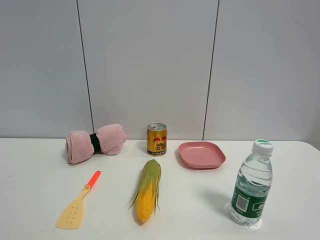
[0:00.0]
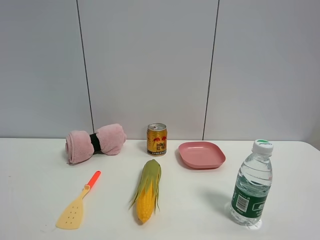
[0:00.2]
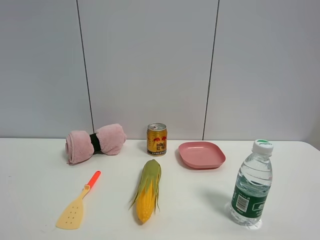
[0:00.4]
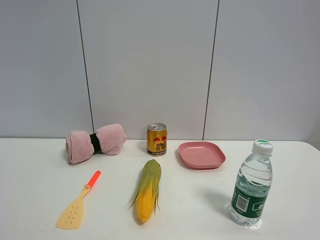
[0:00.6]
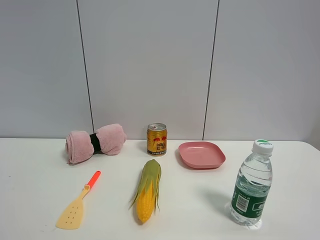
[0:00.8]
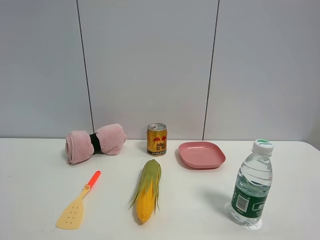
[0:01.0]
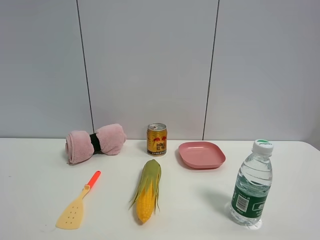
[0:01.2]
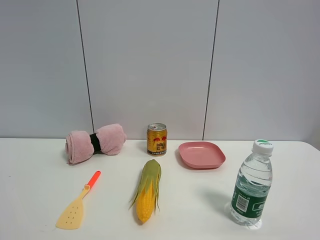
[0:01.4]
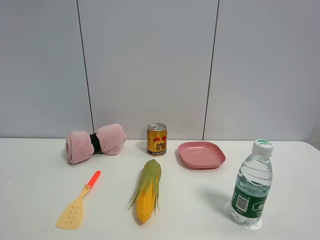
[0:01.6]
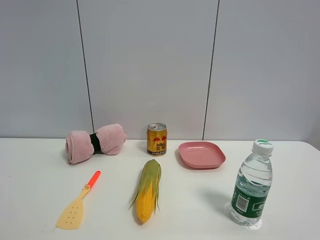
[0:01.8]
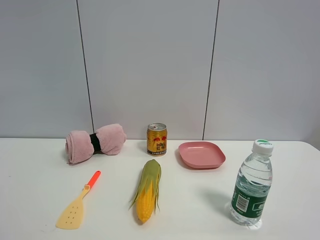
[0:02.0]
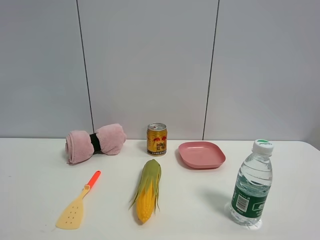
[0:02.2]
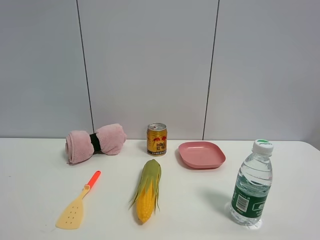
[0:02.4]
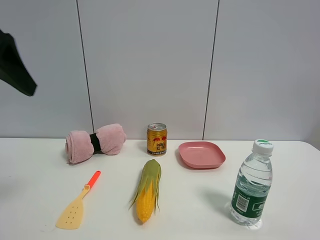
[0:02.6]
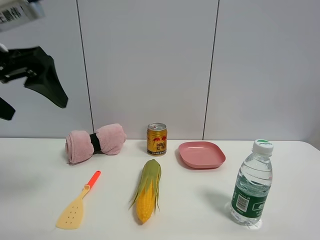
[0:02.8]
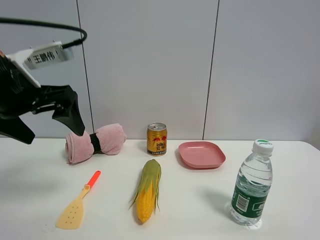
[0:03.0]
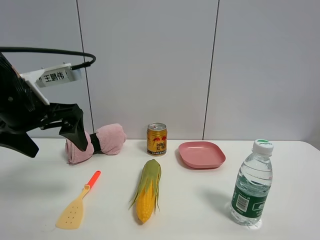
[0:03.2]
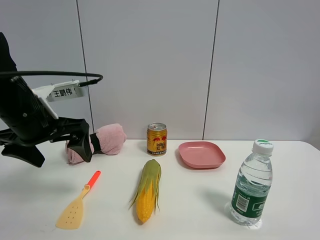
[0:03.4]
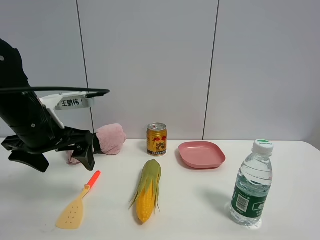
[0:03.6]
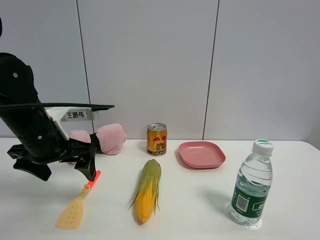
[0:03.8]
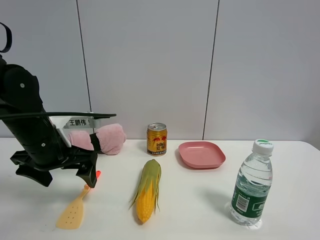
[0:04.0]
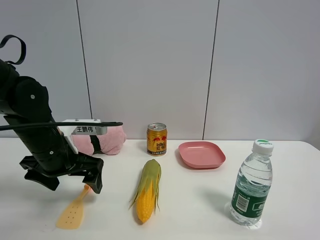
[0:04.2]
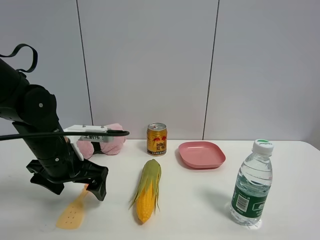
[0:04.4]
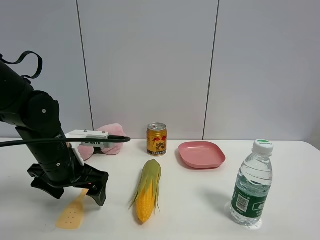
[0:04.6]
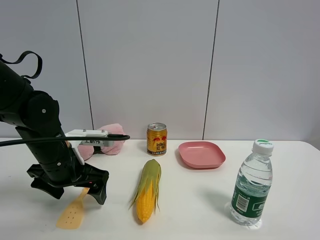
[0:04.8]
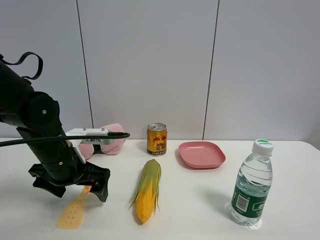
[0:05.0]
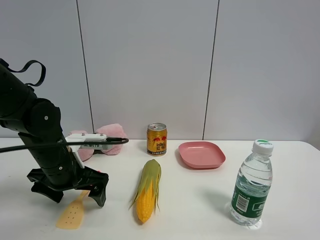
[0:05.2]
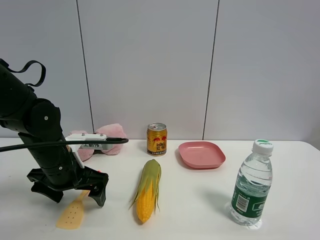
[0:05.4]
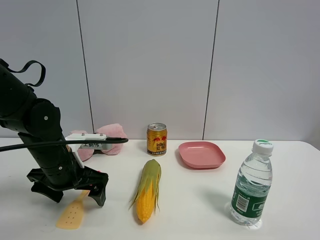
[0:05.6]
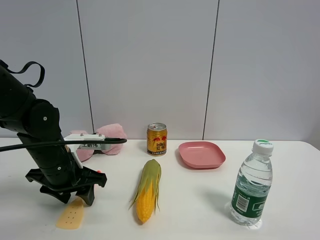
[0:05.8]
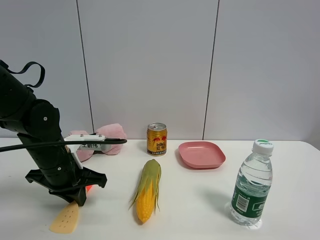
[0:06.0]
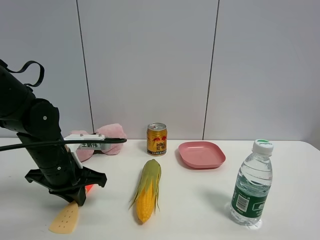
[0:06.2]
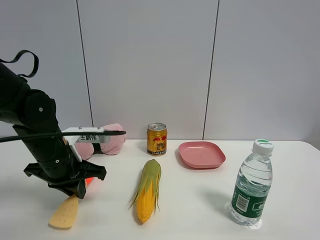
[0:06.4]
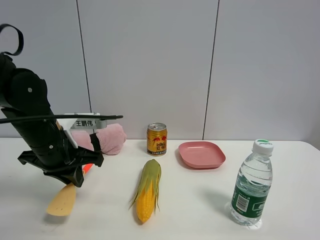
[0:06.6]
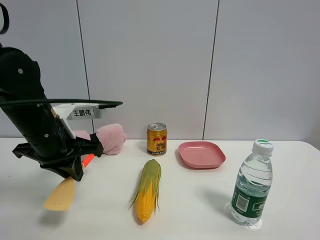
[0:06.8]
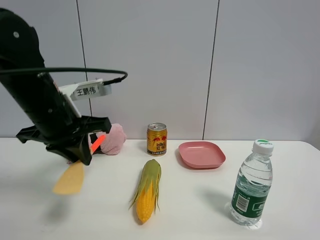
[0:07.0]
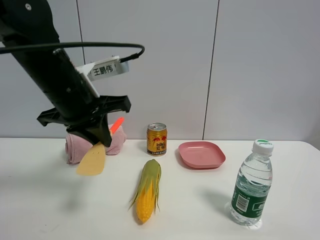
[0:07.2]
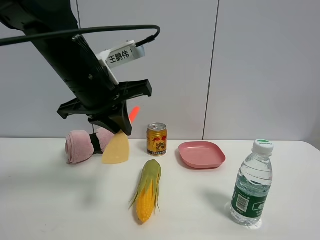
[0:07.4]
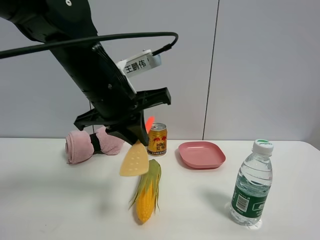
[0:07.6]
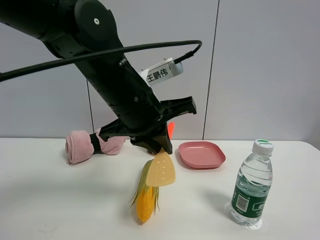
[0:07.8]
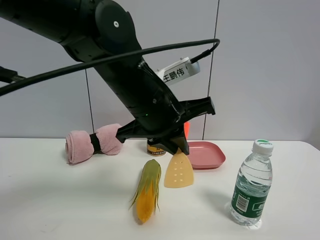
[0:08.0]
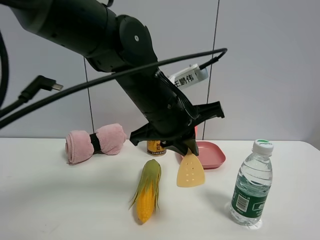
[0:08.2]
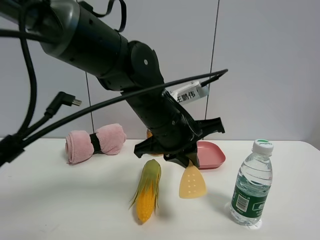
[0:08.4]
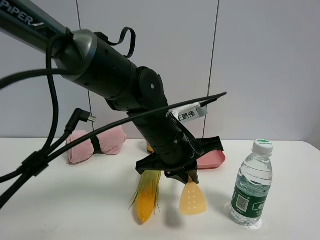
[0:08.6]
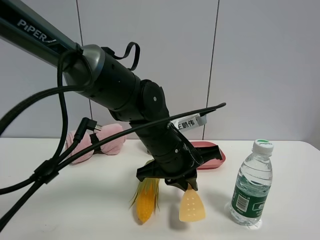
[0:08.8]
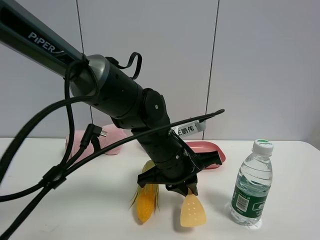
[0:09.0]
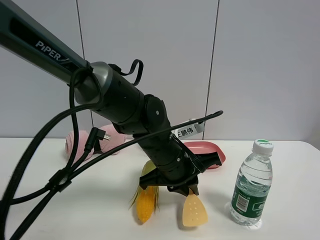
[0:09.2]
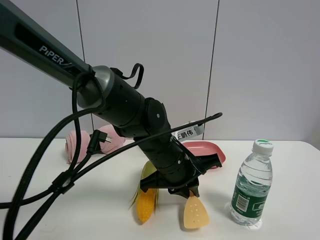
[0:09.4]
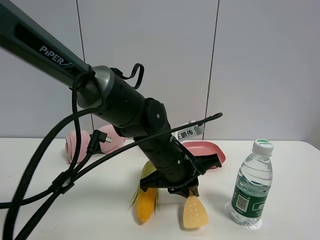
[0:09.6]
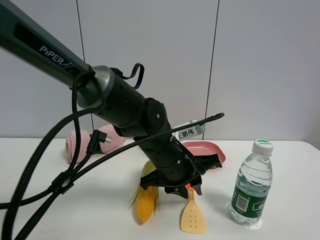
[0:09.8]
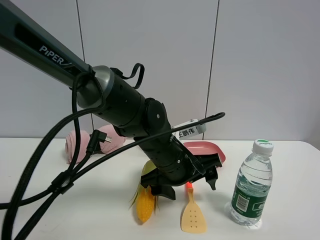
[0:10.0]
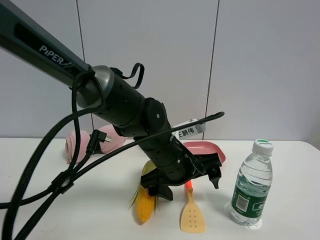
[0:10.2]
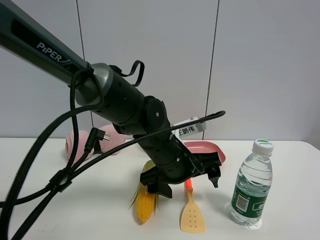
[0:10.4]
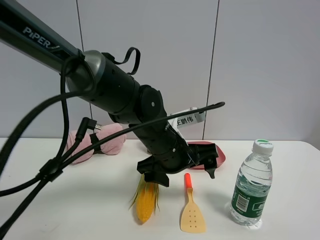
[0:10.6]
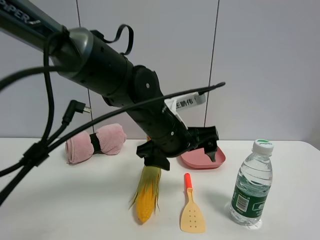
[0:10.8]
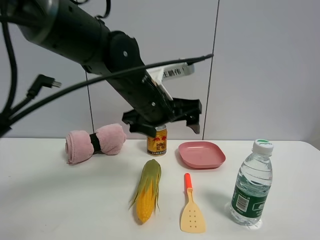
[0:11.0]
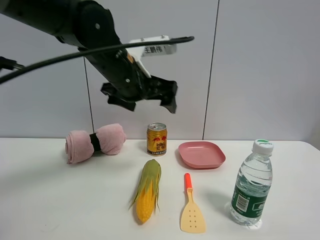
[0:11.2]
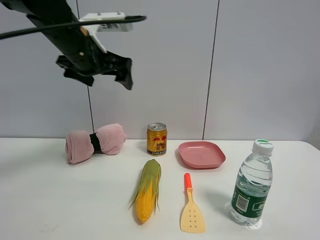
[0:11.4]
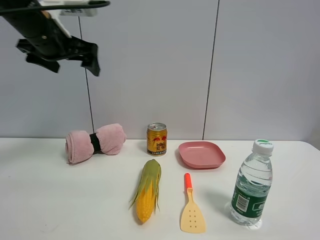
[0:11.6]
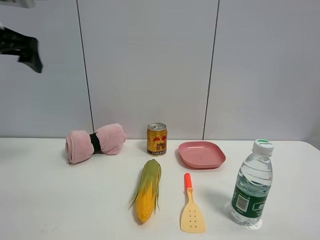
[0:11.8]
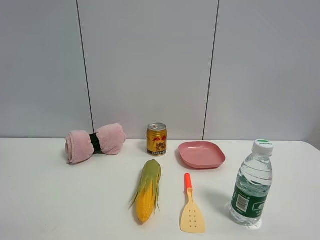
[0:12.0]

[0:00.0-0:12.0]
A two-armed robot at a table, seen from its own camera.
Task of the whole recording: the gripper move the object.
Step, 0:00.0 to 0:06.0: Grasp the cooking shovel with the left gripper.
Step, 0:06.2 to 0:10.0: Place the cooking shovel on the table with the left gripper.
0:01.6 to 0:03.0: The left gripper heads forward, covering roughly 25 cm.
0:03.0 to 0:04.4: The left gripper is displaced downward by about 15 cm.
0:04.4 to 0:06.0: The left gripper closes.
0:06.0 to 0:07.6: The left gripper is displaced upward and to the right by about 20 cm.
0:07.6 to 0:09.0: The left gripper is displaced downward and to the right by approximately 15 cm.
0:09.0 to 0:10.4: The left gripper opens.
0:10.4 to 0:12.0: The left gripper is displaced to the left and upward by about 40 cm.

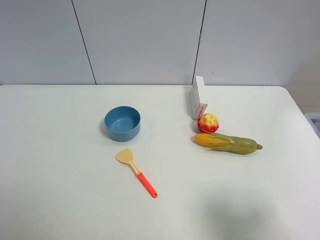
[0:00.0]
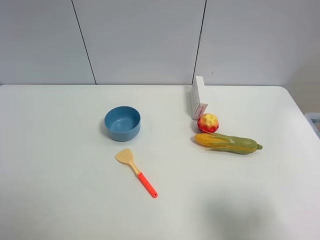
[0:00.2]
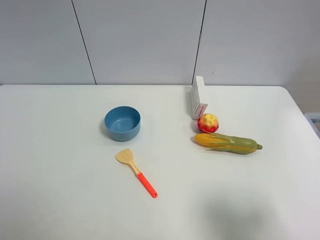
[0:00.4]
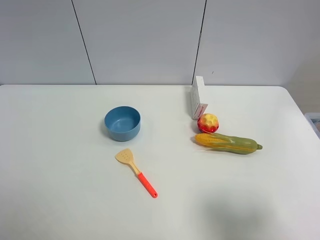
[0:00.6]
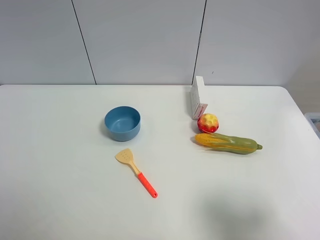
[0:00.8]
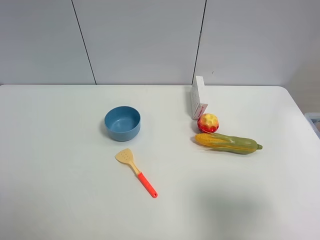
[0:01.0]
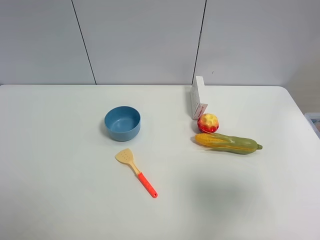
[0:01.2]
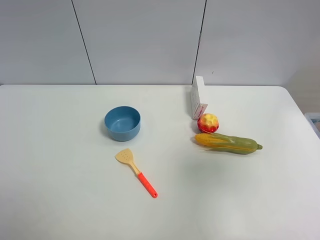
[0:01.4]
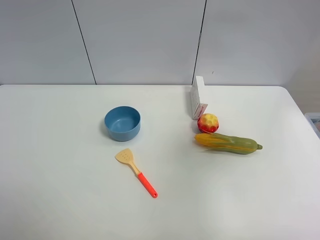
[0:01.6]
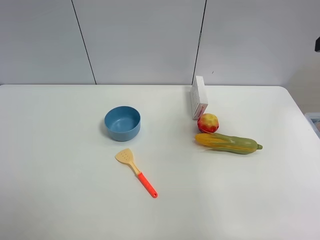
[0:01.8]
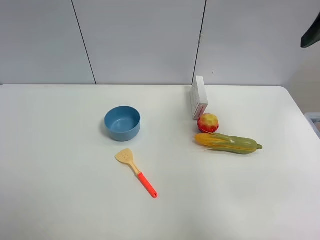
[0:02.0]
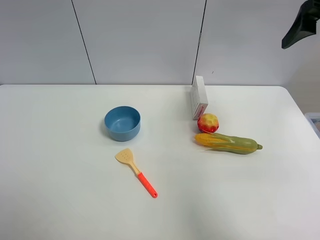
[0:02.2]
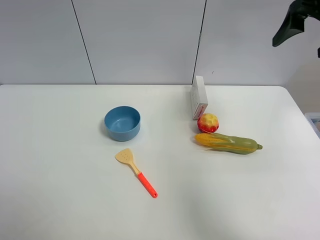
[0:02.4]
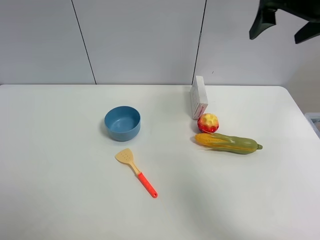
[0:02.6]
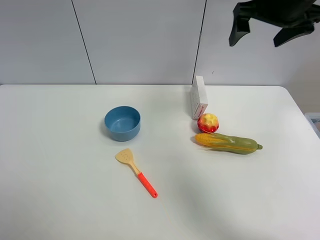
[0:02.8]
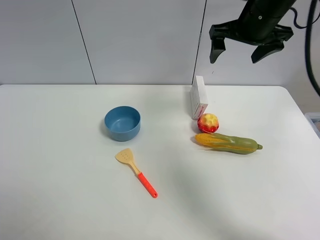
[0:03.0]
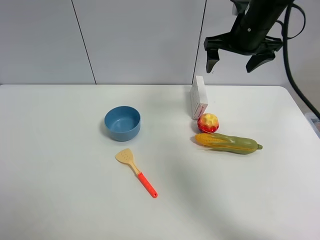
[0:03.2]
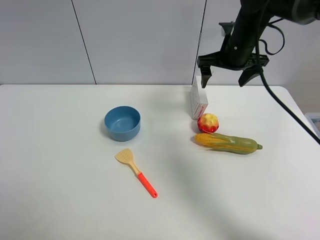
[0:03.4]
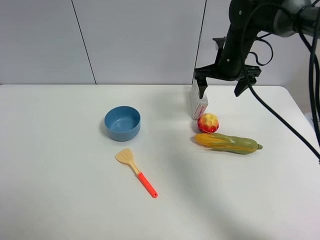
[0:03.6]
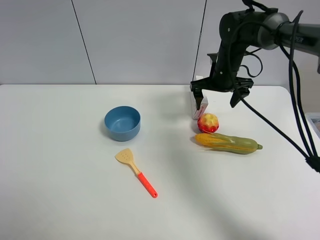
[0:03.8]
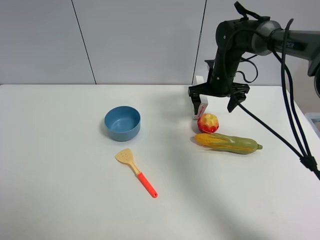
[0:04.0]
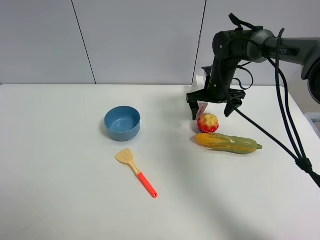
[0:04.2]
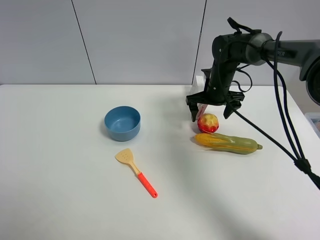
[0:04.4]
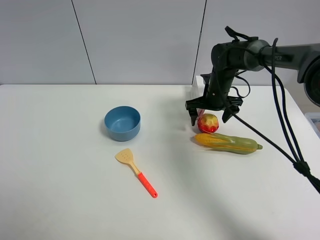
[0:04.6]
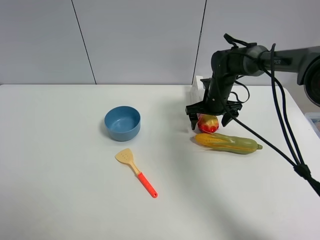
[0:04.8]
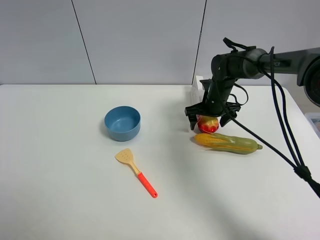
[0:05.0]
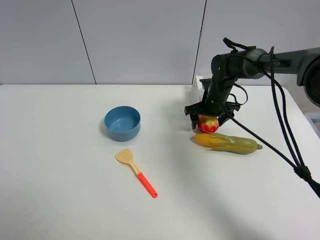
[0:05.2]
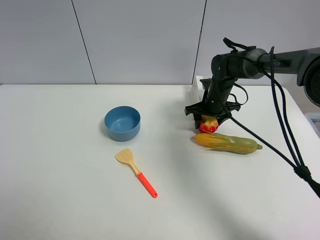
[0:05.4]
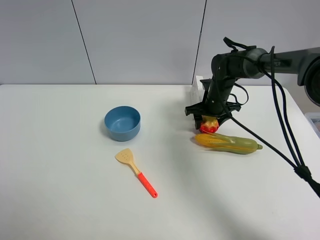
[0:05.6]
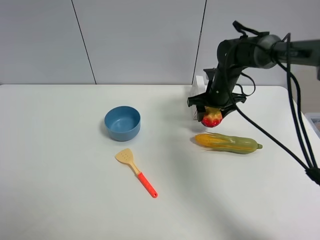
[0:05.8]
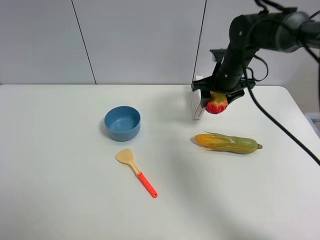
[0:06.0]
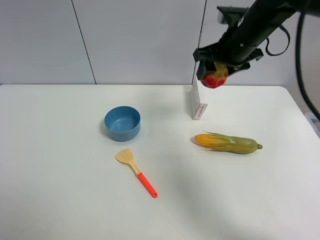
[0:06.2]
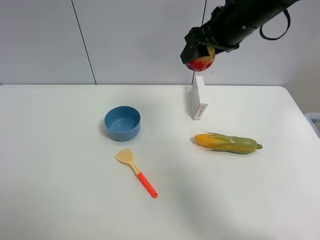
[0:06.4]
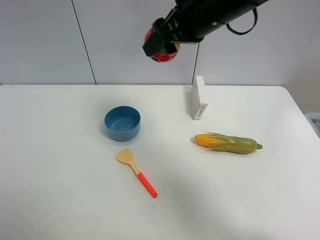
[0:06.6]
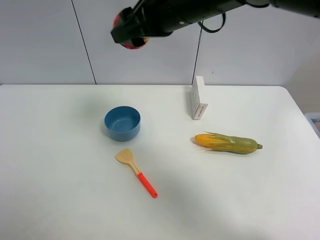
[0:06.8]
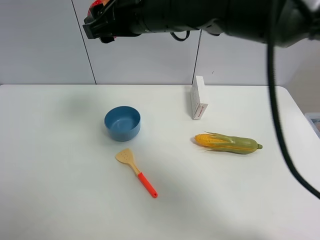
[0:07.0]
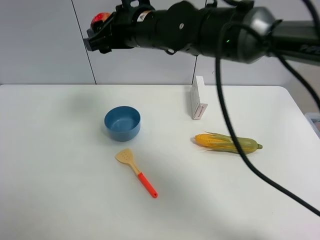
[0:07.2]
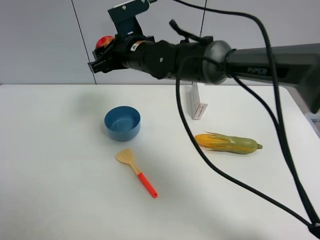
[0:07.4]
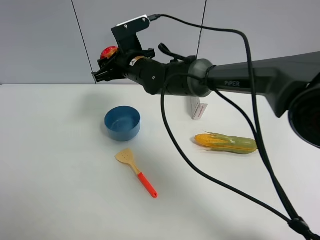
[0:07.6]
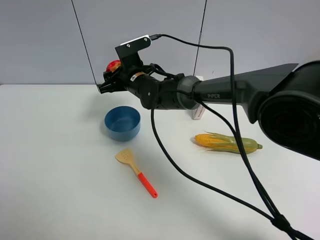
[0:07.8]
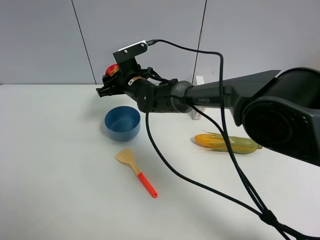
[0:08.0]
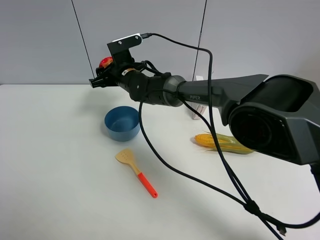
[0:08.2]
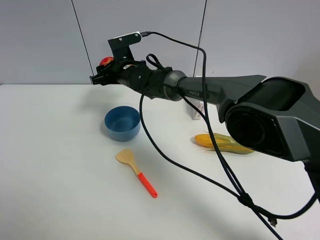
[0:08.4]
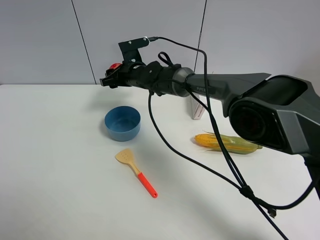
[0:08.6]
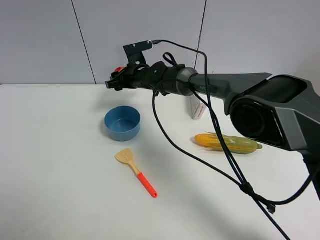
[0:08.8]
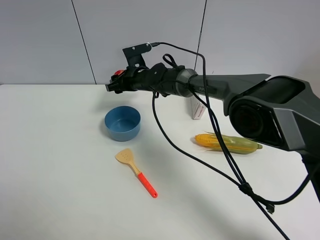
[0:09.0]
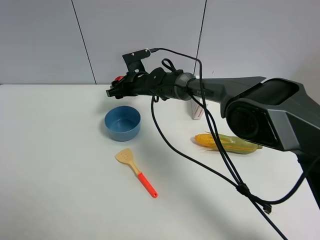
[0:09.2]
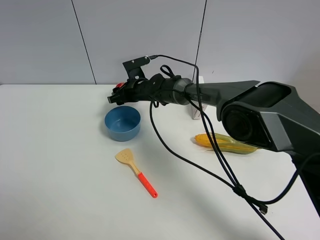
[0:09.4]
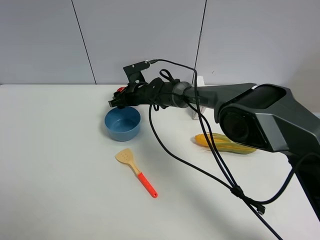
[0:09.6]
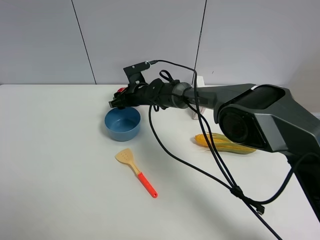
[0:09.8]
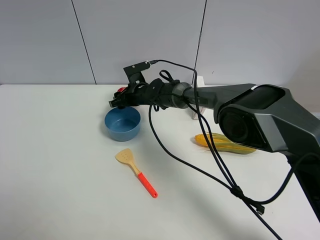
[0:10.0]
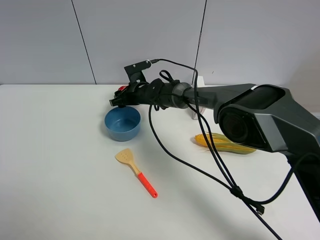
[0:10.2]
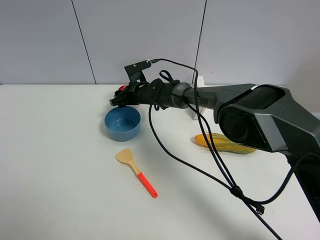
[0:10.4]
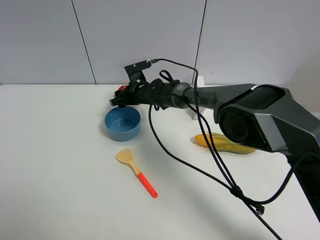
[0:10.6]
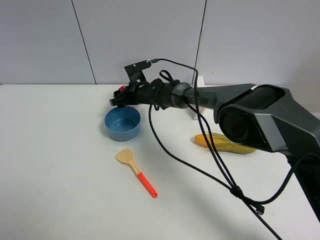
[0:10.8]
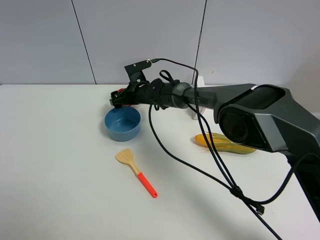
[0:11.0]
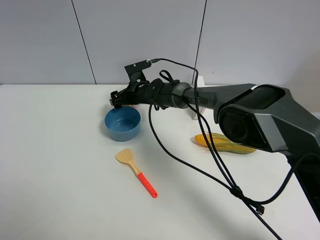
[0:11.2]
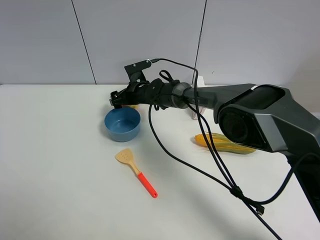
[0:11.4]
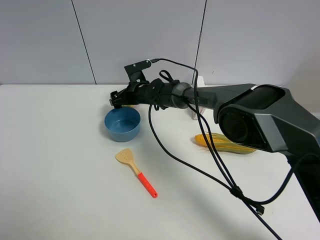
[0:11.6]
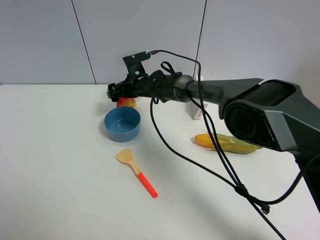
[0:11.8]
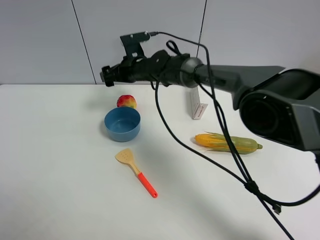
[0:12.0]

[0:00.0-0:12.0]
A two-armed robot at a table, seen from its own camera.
Task of the whole recording: the gripper move the object.
Step, 0:00.0 to 0:05.2: Grasp the colorful ball with the right gripper.
Step, 0:05.4 to 0:11.0: Place the colorful ball on the table with the right gripper.
0:00.0 to 0:01.6: The right gripper moves forward and upward, roughly 20 cm.
0:01.6 to 0:03.0: The right gripper goes about 25 cm forward and to the left.
0:03.0 to 0:04.4: The right gripper heads downward, covering some 20 cm.
0:04.4 to 0:06.0: The right gripper travels upward by about 10 cm, and closes up.
0:06.0 to 0:07.6: The right gripper is displaced to the left by about 20 cm.
0:07.6 to 0:09.0: The right gripper is displaced forward and downward by roughly 10 cm.
0:09.0 to 0:10.4: The grippers make only small movements.
0:10.4 to 0:12.0: The right gripper is displaced upward by about 10 cm, and opens up.
